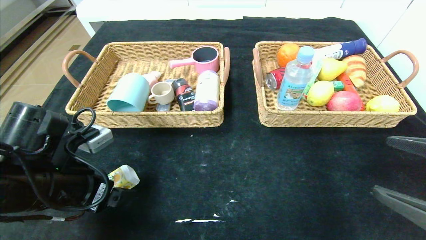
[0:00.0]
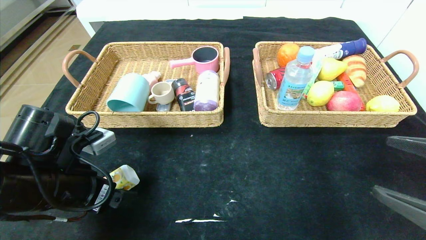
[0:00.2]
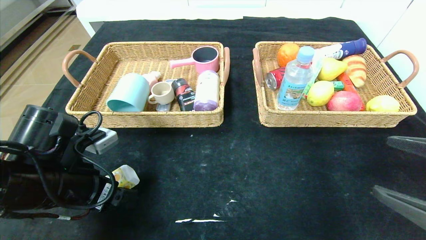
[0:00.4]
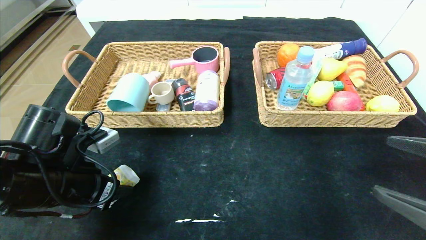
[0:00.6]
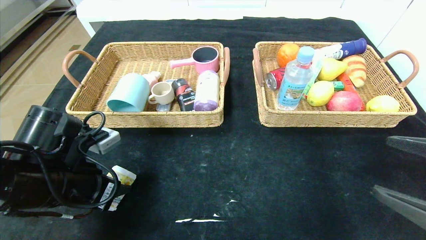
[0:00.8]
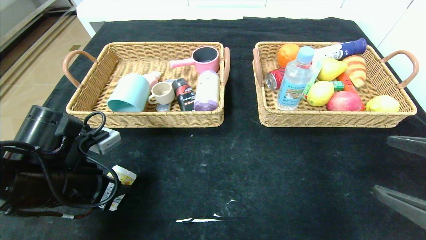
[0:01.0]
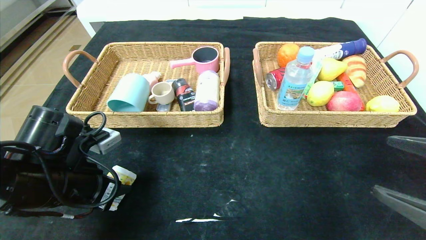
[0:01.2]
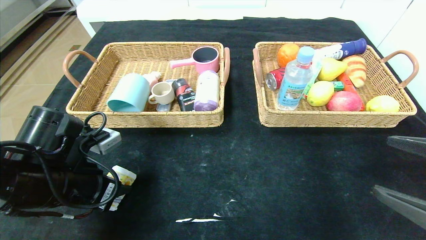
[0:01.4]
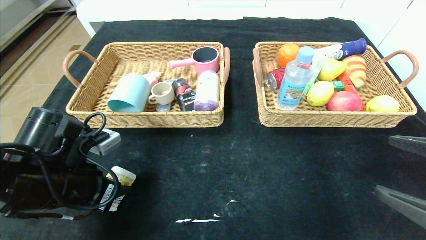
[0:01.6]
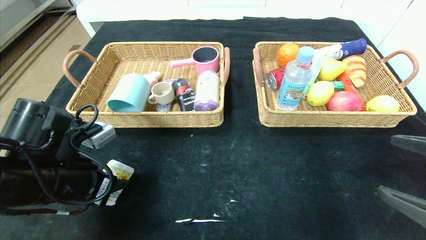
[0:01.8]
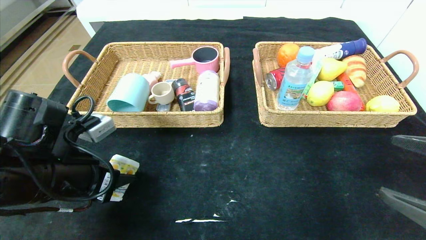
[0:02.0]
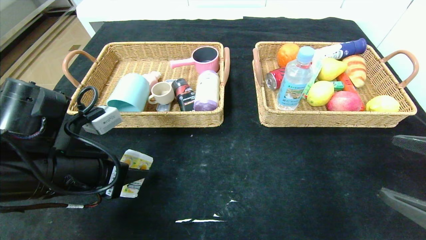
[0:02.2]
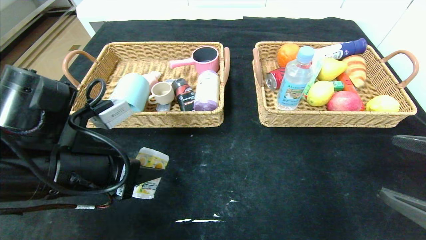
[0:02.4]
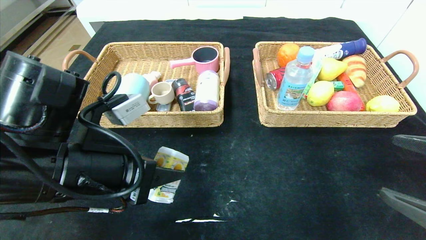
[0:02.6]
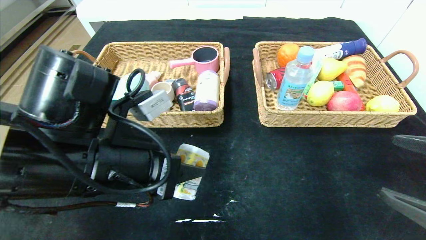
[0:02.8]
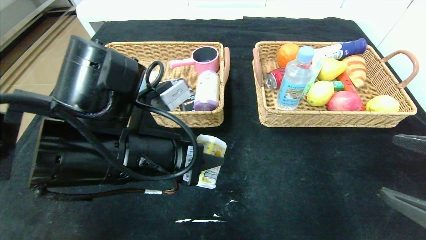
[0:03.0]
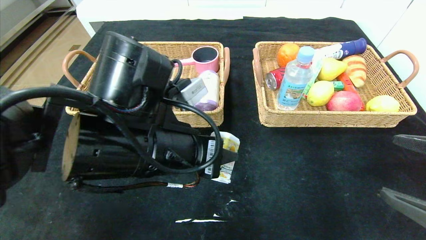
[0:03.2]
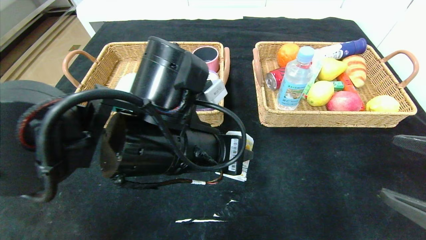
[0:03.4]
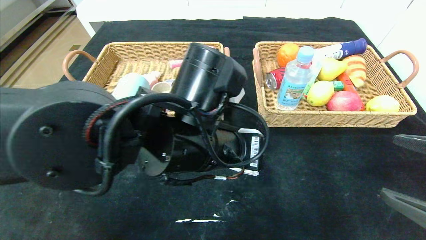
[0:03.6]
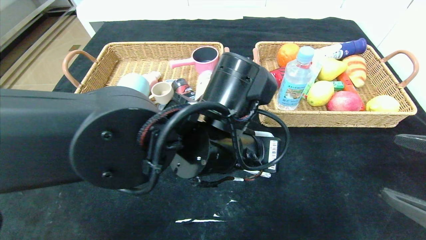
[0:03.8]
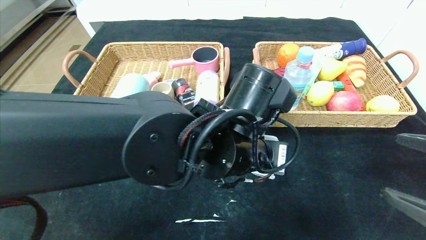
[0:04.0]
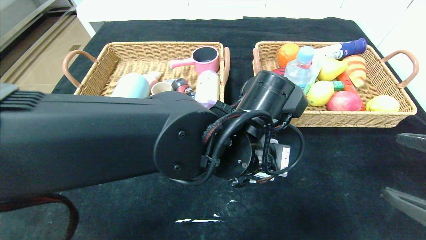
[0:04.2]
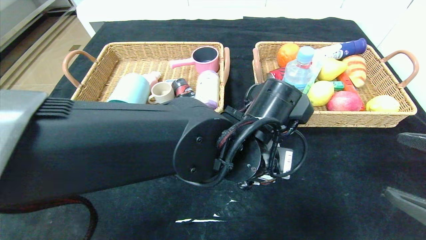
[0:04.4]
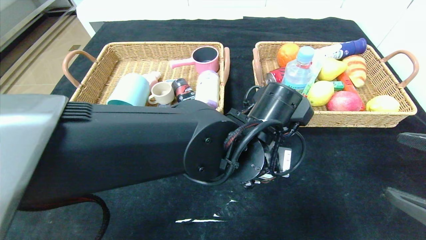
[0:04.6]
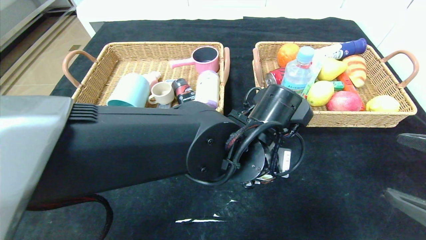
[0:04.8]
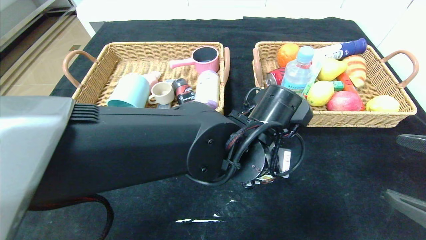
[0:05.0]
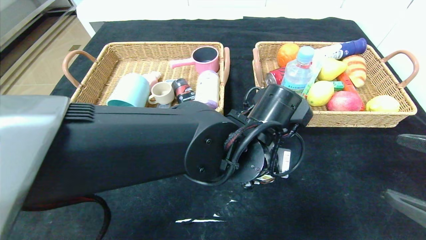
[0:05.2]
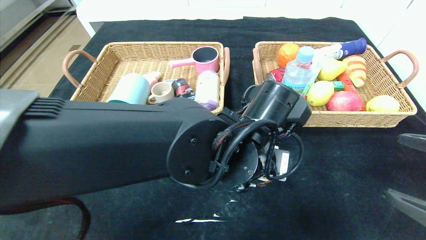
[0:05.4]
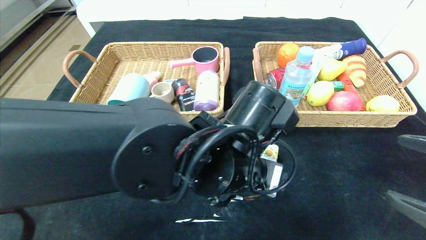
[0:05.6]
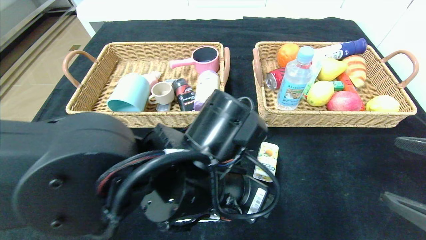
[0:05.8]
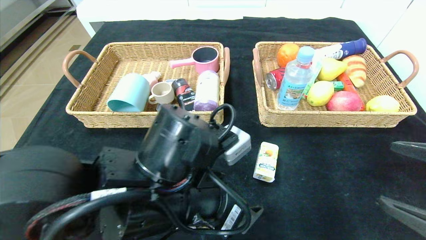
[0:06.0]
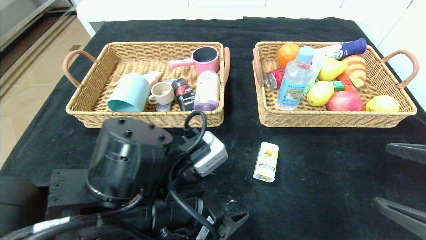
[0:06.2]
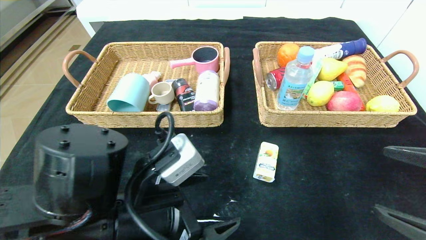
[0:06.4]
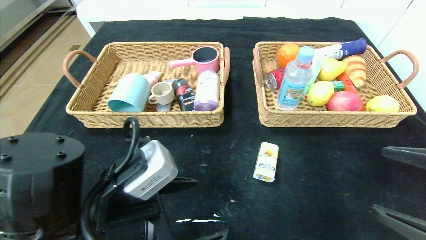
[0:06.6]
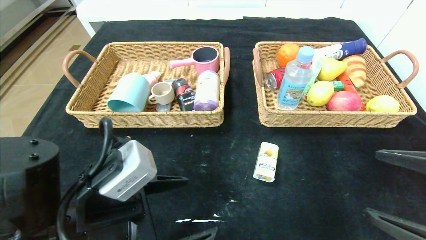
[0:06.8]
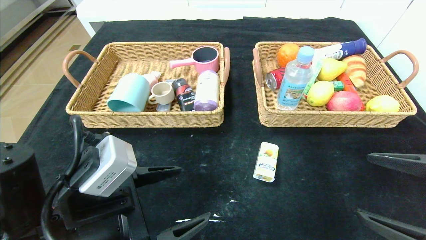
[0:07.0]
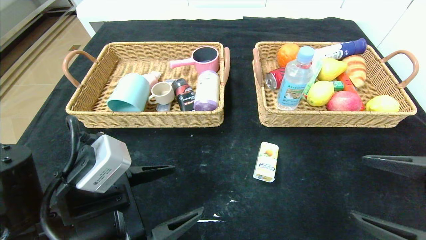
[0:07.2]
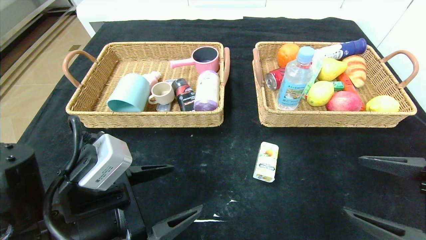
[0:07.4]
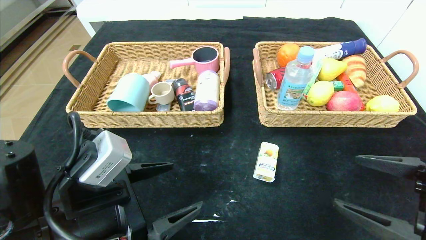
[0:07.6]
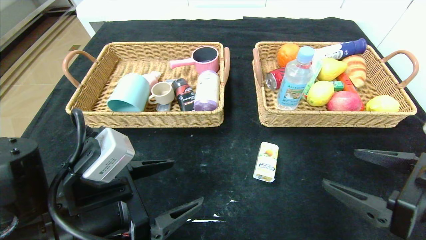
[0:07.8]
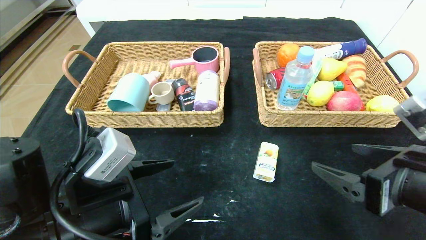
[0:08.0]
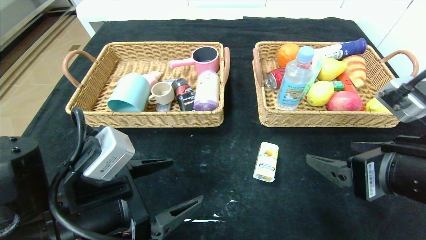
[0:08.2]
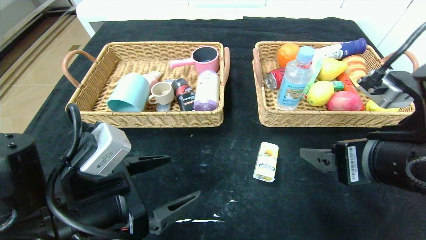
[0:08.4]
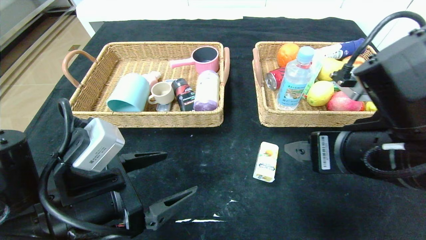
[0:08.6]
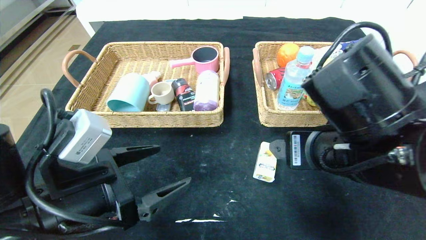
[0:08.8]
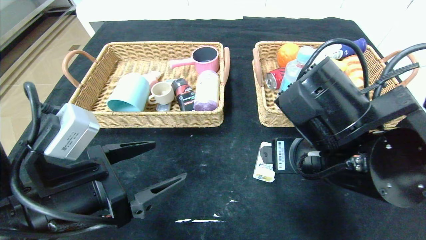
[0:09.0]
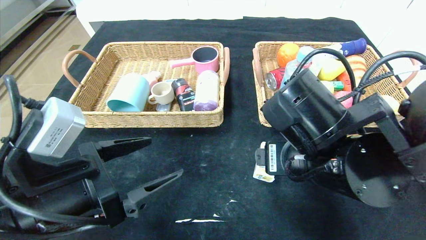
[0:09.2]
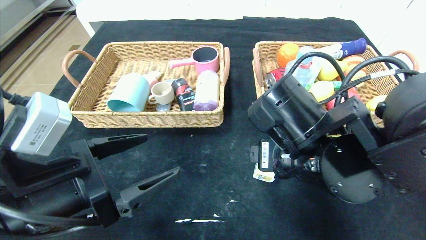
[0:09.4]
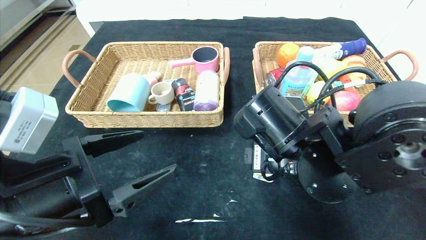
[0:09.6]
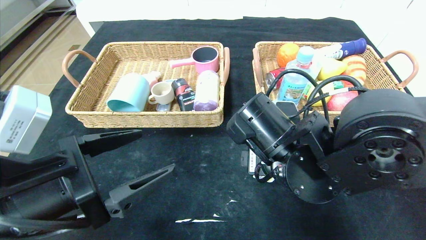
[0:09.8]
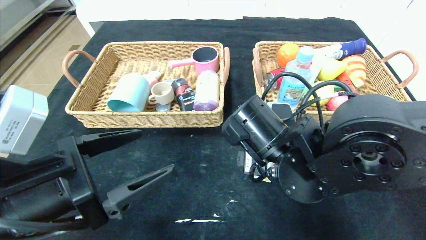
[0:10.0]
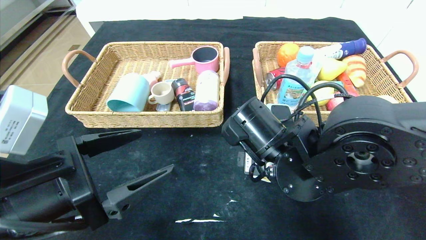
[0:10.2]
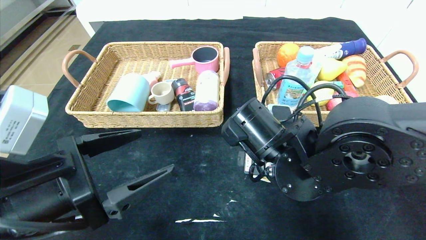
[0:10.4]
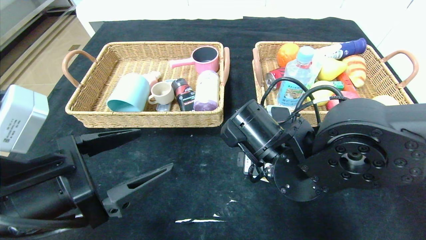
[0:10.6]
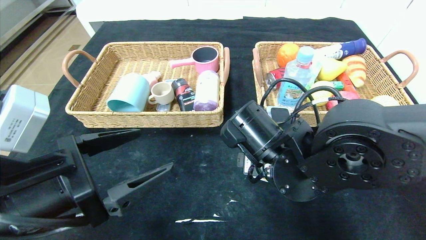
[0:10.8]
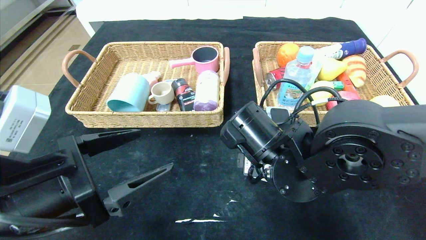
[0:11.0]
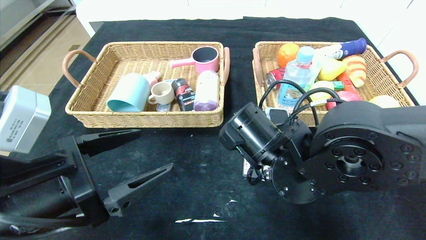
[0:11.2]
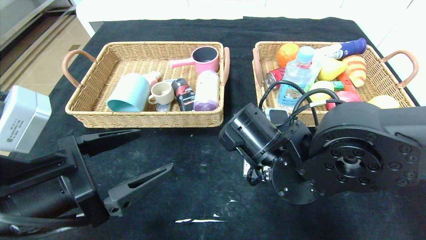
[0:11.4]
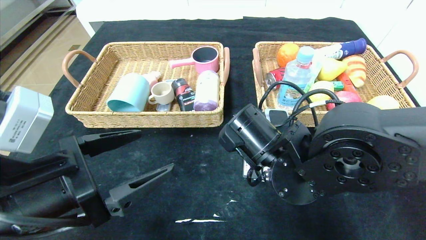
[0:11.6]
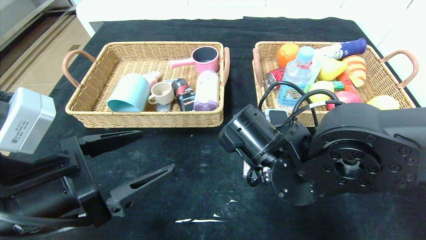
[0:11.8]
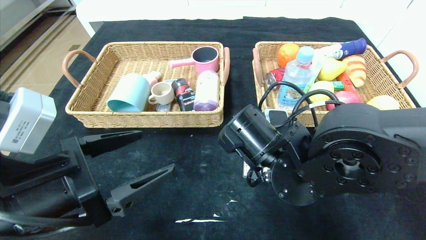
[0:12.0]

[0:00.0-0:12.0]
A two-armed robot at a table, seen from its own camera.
Step, 0:00.0 to 0:06.0: Place the square chewing gum in the center of the table.
0:00.0 to 0:01.6: The left gripper closes.
0:01.6 to 0:03.0: The left gripper heads to the right and upward, covering roughly 15 cm.
0:03.0 to 0:04.4: The left gripper is displaced to the right by some 15 cm.
0:04.4 to 0:06.0: The left gripper heads to the left and backward, covering about 10 cm, and opens up.
0:06.0 to 0:07.6: The left gripper heads to the left, covering approximately 10 cm.
0:07.6 to 0:09.0: The right gripper shifts roughly 15 cm to the left and forward.
0:09.0 to 0:10.4: The right gripper changes place by some 5 cm.
0:10.4 to 0:12.0: The right gripper closes up.

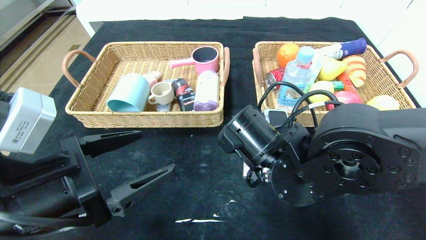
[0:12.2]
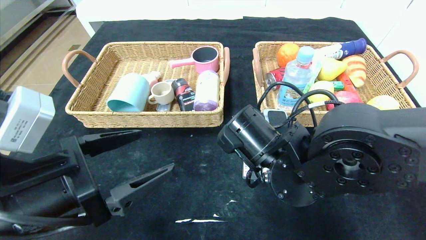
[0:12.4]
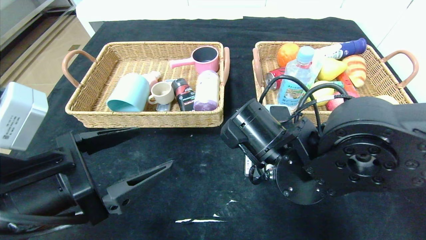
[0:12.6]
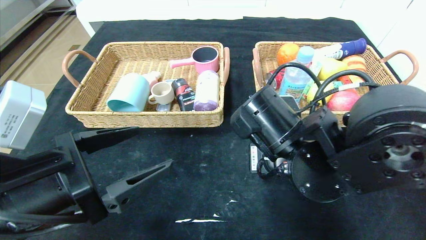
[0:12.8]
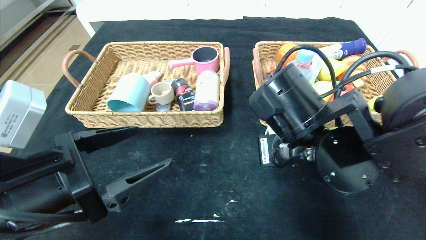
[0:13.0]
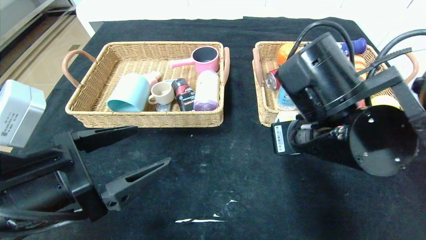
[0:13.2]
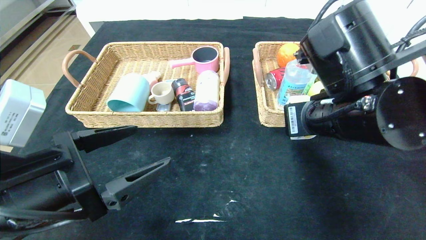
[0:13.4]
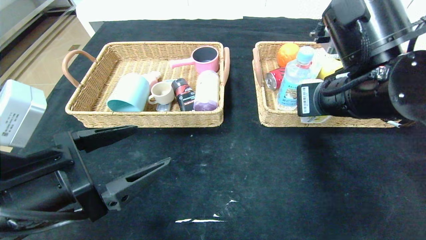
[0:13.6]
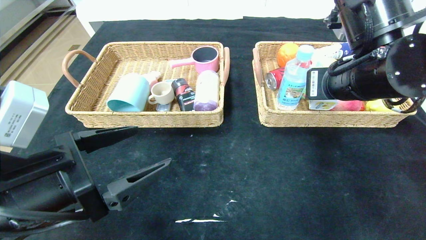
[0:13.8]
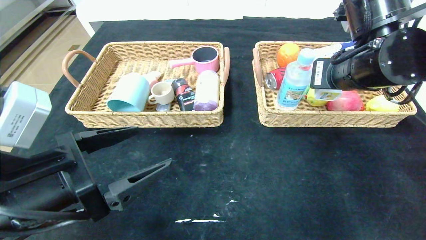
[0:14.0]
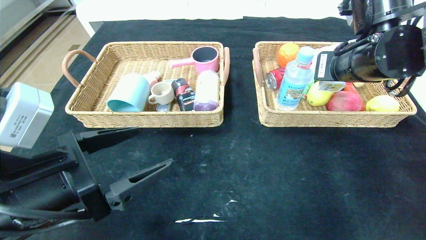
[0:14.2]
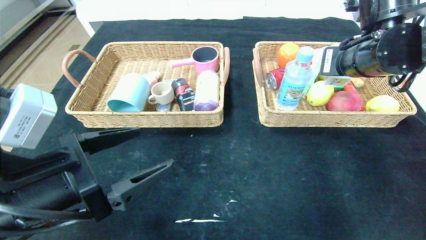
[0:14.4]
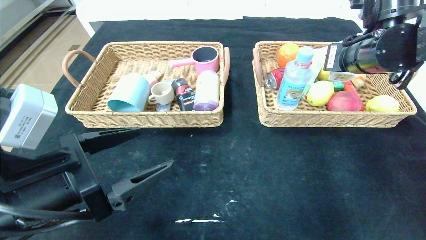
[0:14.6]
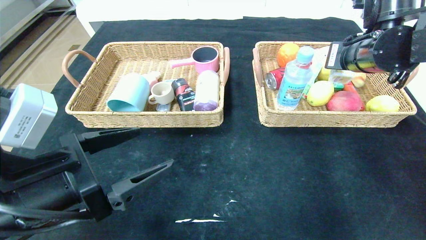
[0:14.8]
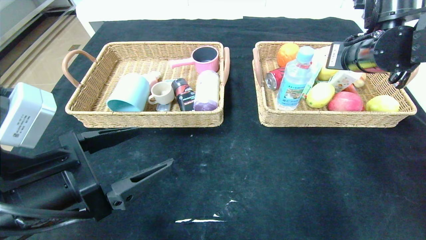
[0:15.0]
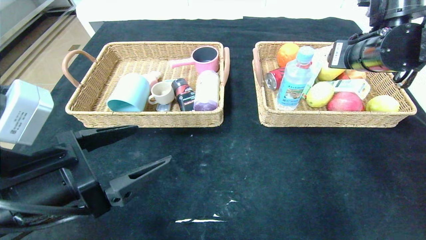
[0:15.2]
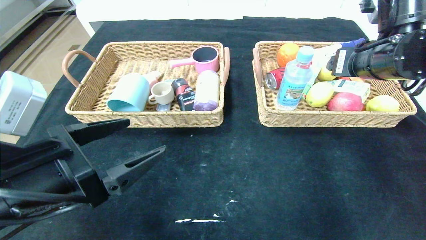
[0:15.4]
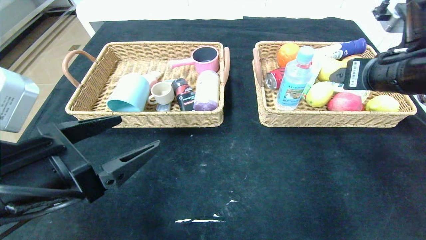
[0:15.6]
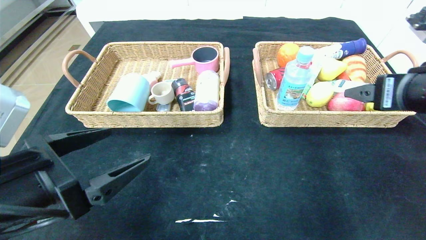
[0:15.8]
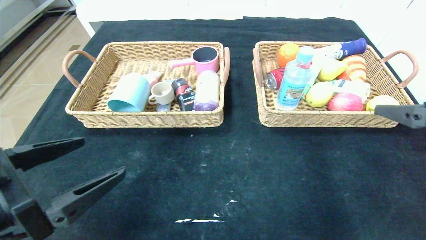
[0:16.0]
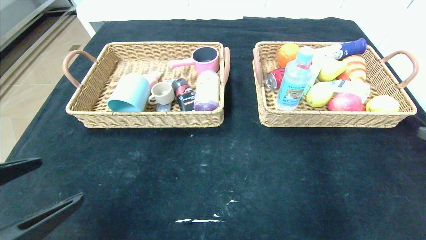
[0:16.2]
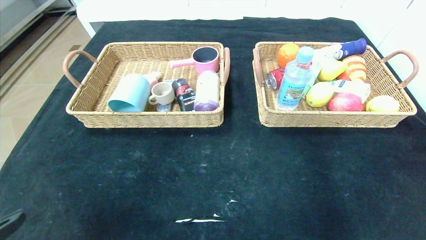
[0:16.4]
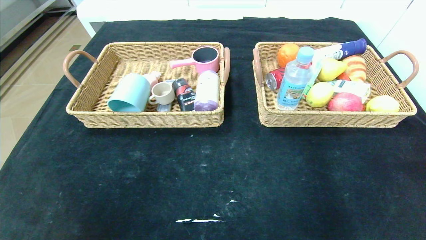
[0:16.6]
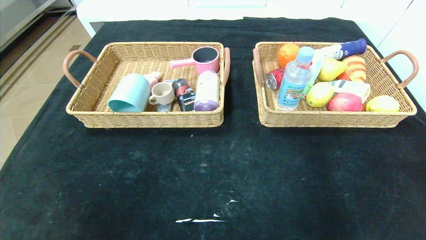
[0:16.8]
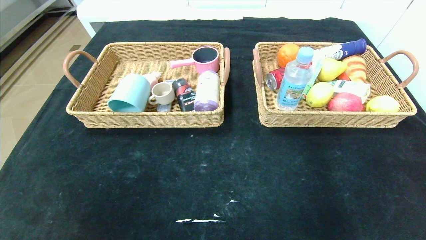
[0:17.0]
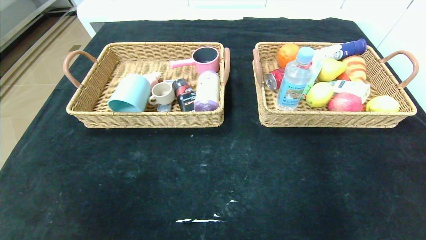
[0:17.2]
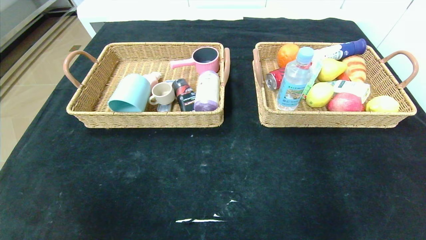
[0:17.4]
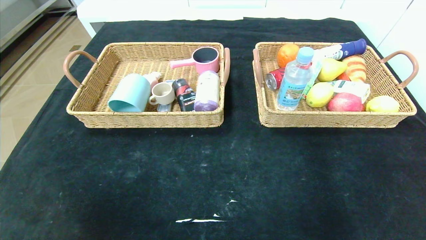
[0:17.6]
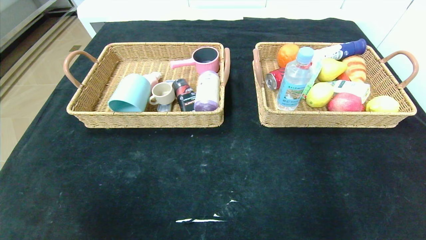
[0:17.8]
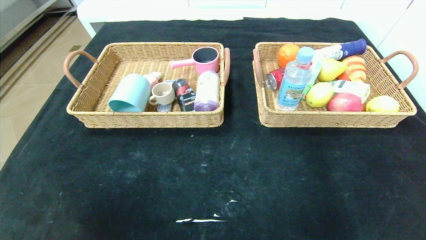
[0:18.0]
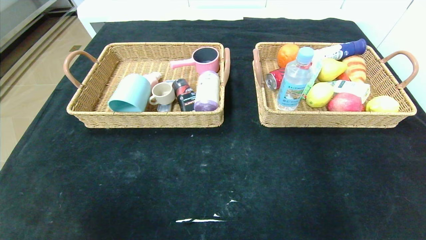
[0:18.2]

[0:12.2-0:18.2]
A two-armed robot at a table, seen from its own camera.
Step, 0:12.2 to 0:16.2: Pick up the square chewing gum and put it in the right basket.
0:12.2 to 0:13.8: The right gripper shifts approximately 15 cm upward and to the right.
0:13.8 to 0:15.2: The right gripper shifts some 10 cm forward and to the right, and opens its fingers.
0:15.2 to 0:16.6: The left gripper shifts about 15 cm backward and to the left. The right gripper is displaced backward by some 35 cm.
0:16.6 to 0:18.2: The right gripper heads downward and backward, covering some 15 cm. The left gripper is displaced backward by some 5 cm.
